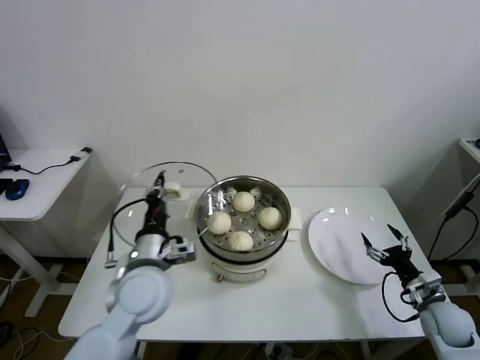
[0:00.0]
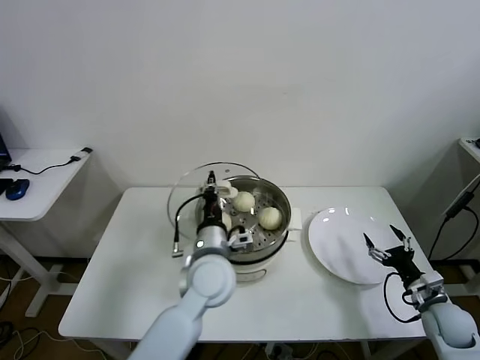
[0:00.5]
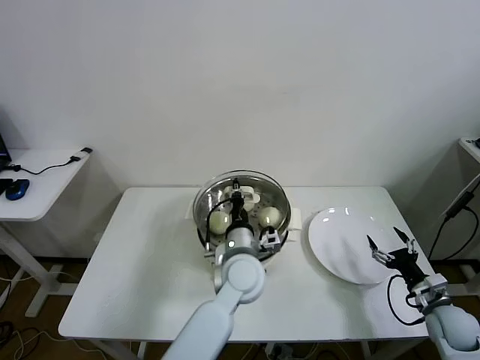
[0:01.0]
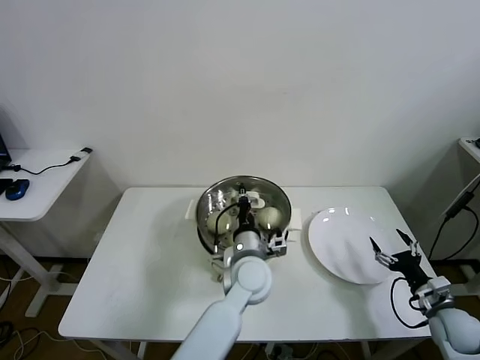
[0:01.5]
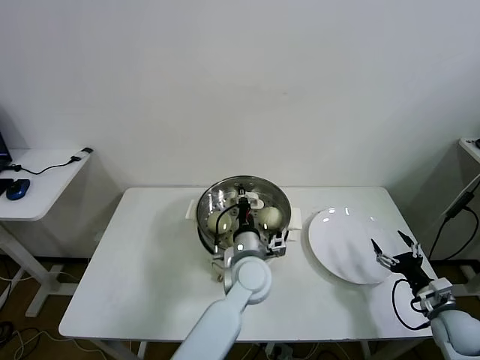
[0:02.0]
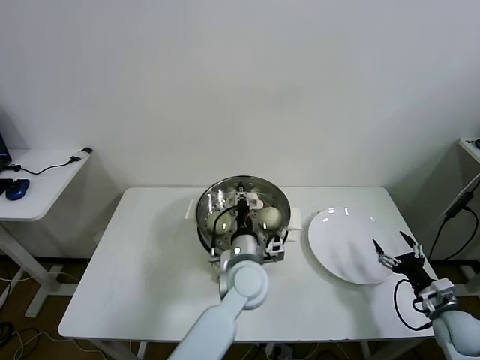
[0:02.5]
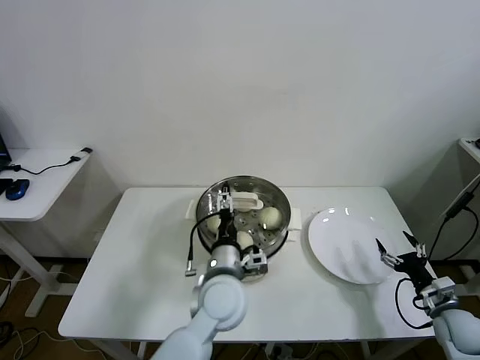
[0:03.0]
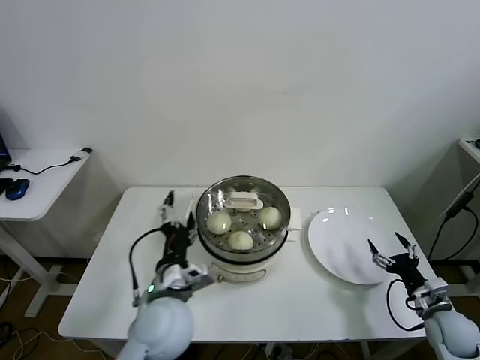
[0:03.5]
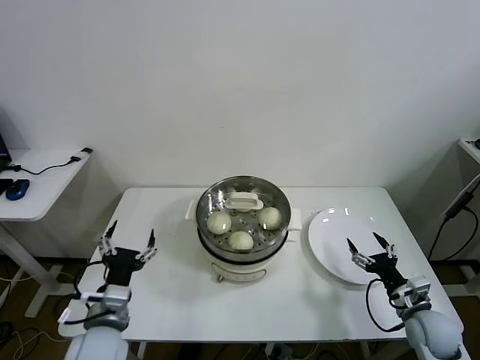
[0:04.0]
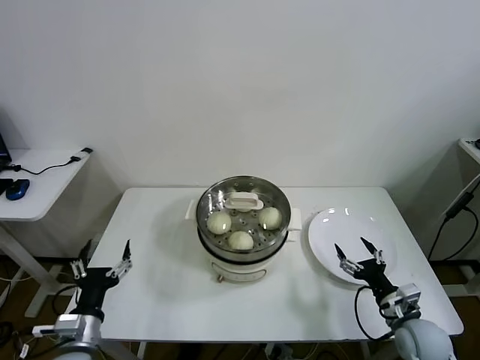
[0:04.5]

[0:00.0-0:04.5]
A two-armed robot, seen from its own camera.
Task of the whole recording: take steamed baozi put them in steamer.
Step, 0:00.0 to 0:02.5: Place the pot lid on the steamer with left gripper.
0:00.0 to 0:02.0: The left gripper moves to the right, about 20 cm.
0:02.0 to 0:04.5: The right gripper moves to the left, roughly 10 cm. Meanwhile the left gripper shifts roughly 35 cm to the left and backward, and opens up.

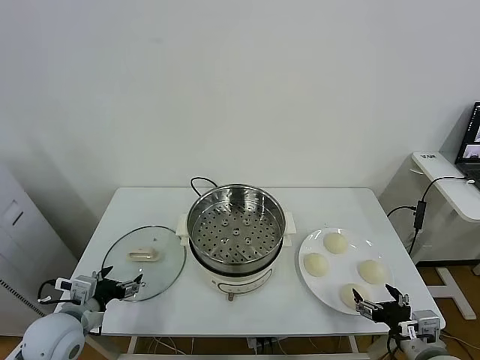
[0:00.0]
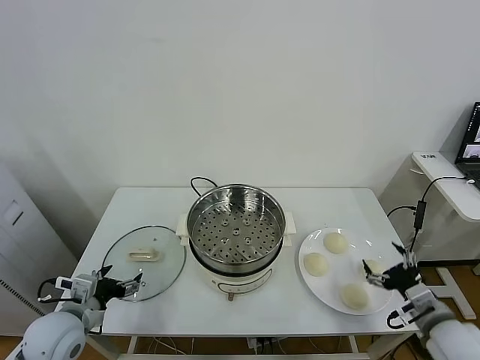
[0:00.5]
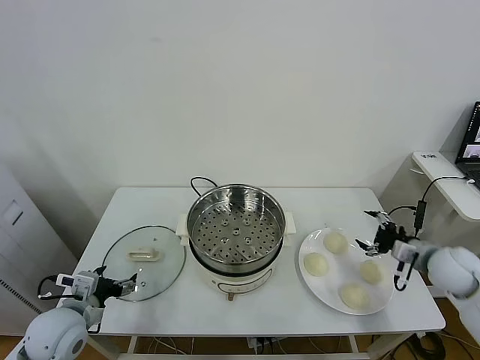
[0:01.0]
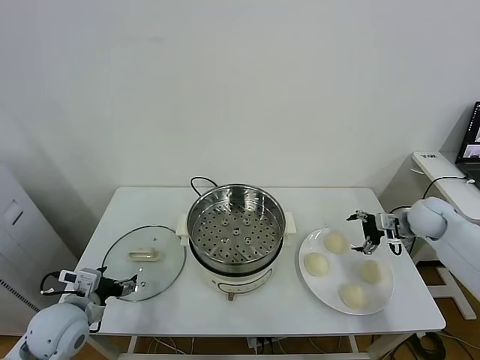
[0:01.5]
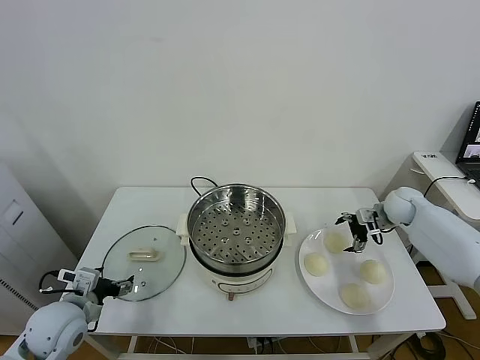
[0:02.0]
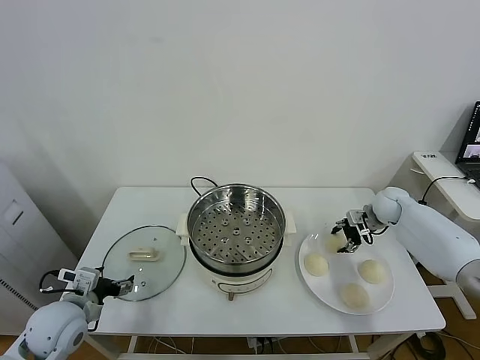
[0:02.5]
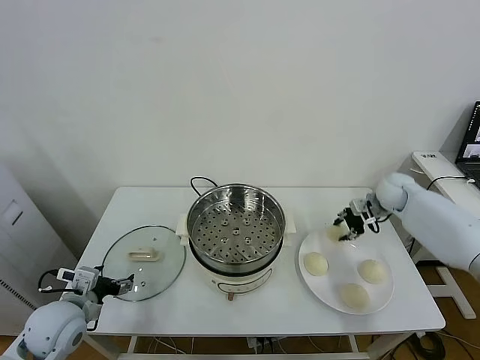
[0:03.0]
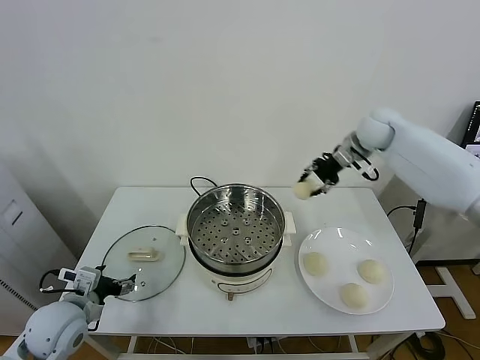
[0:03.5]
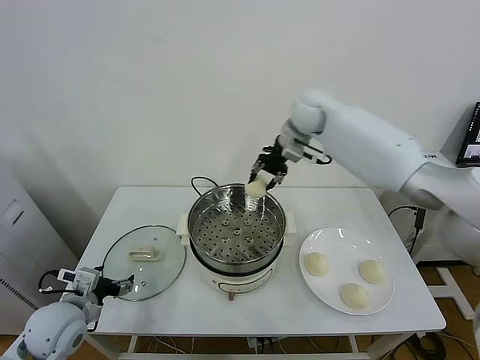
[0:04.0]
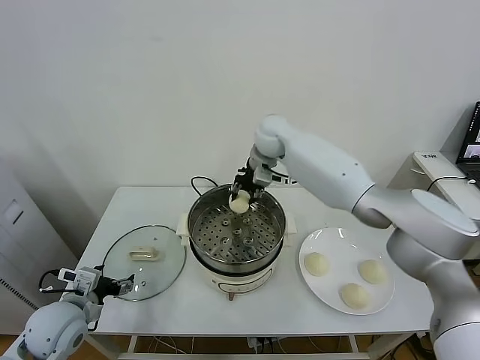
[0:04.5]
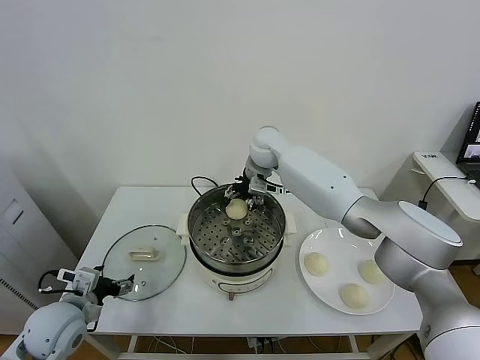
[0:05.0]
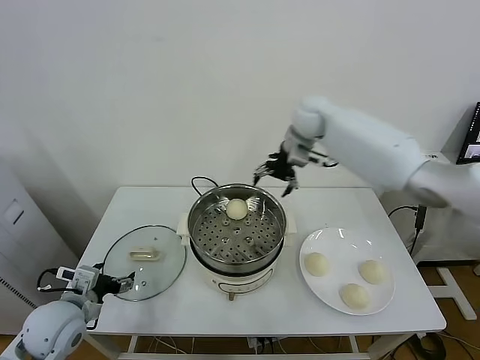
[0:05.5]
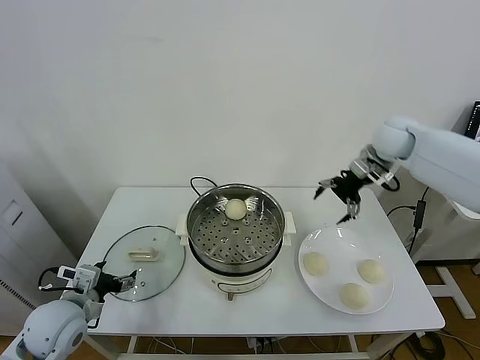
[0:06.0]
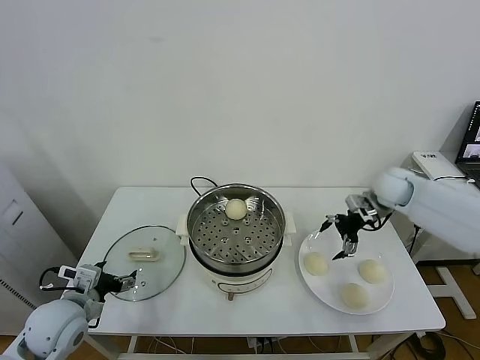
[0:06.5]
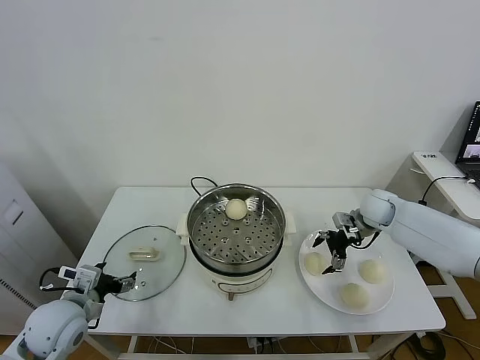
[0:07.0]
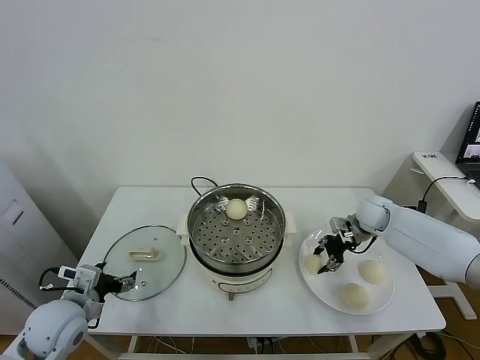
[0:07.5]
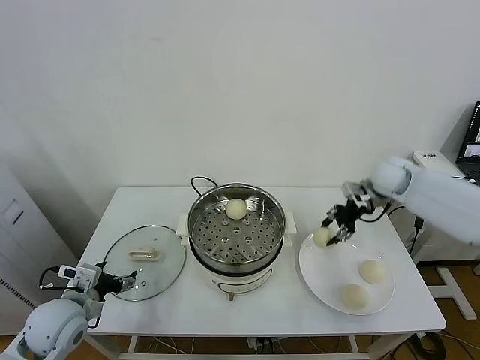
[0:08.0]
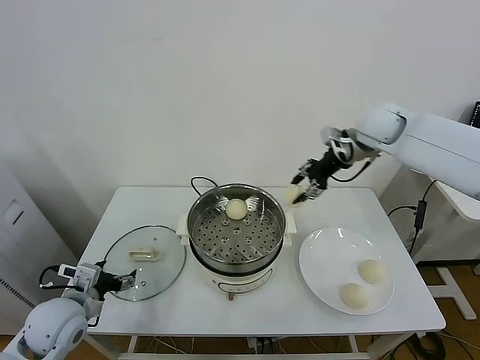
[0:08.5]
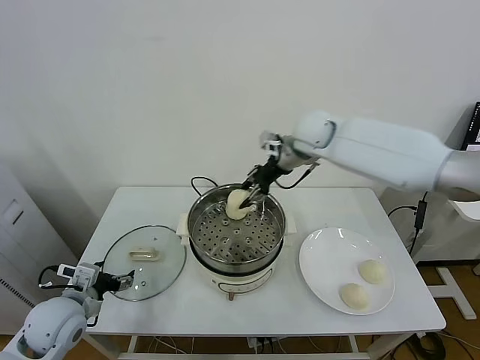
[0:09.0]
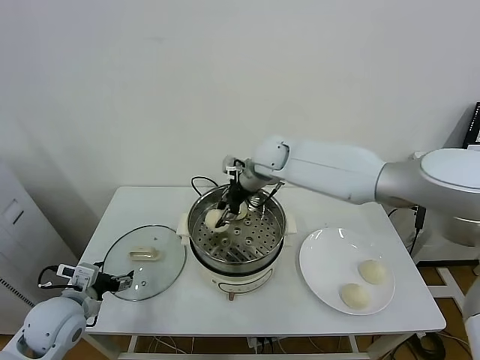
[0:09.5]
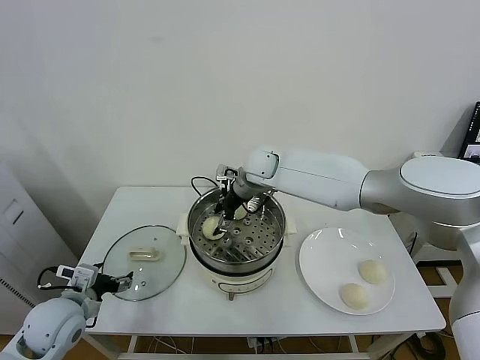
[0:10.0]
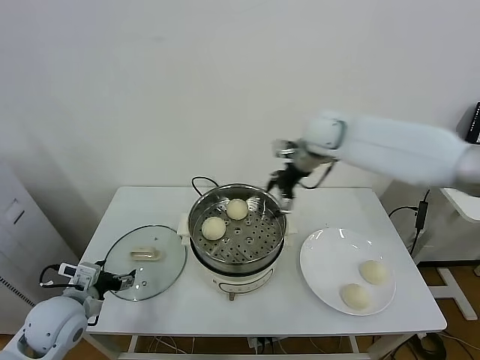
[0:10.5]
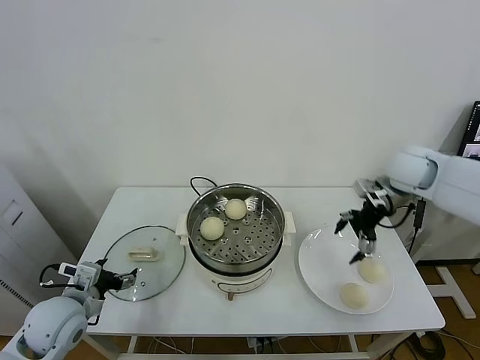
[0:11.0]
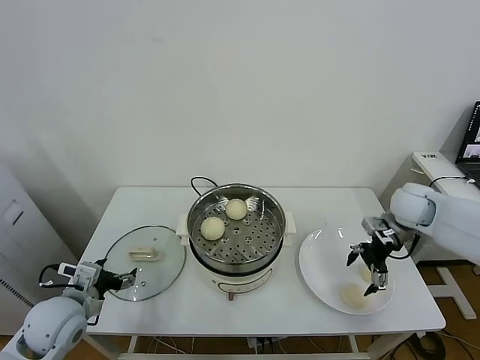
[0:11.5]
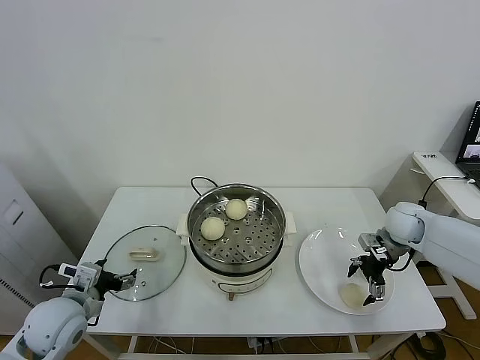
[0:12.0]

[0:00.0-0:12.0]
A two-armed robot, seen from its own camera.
Task of the whole recording: take steamed baozi put them in steamer.
Step, 0:00.0 to 0:02.5: Grasp the baozi in the plate with right gripper.
Step, 0:03.0 to 0:05.0: Place the baozi on the steamer with right gripper.
Step, 0:05.5 to 0:07.5: Grasp the baozi in the plate with right gripper.
Step, 0:08.0 to 0:10.0: Place the baozi on the steamer with right gripper.
0:02.0 to 0:04.0: The right gripper moves to the left and upward, some 35 cm, and closes.
0:04.0 to 0:06.0: The right gripper is displaced to the right by approximately 20 cm, and opens its fingers.
0:06.0 to 0:08.0: The right gripper moves about 20 cm downward and comes back, and closes its fingers.
0:08.0 to 0:10.0: The right gripper shifts approximately 30 cm to the left, and opens its fingers.
0:10.0 to 0:12.0: The right gripper moves to the right, about 35 cm.

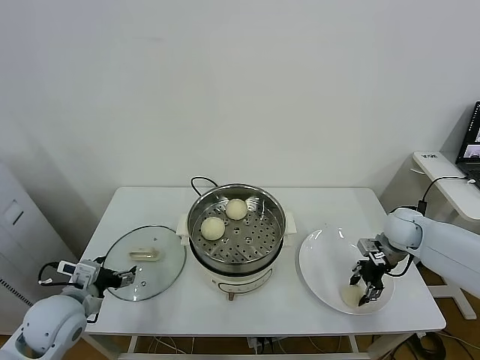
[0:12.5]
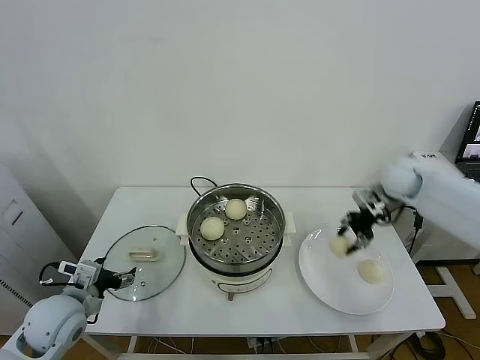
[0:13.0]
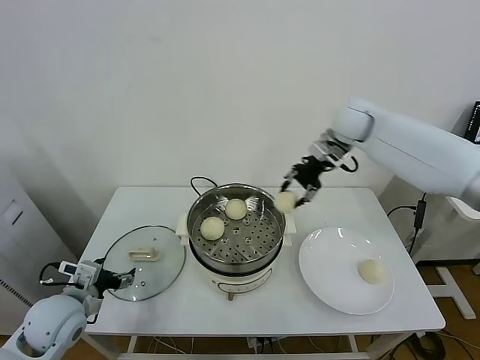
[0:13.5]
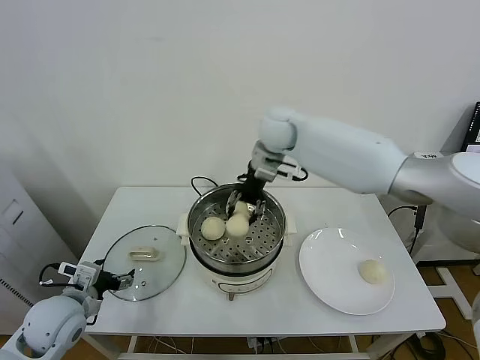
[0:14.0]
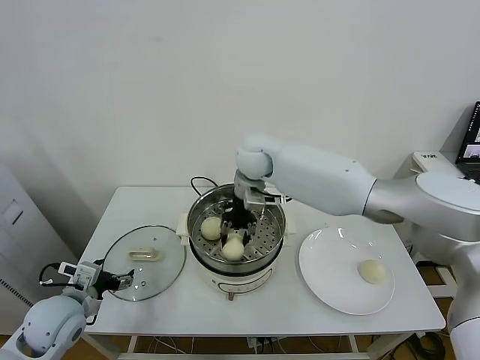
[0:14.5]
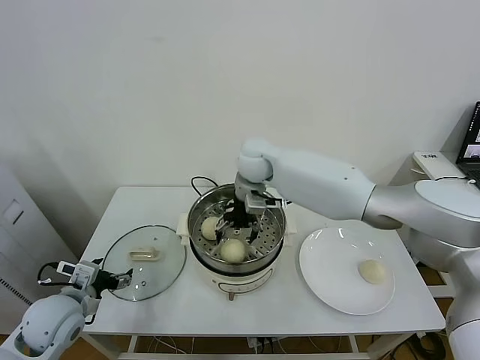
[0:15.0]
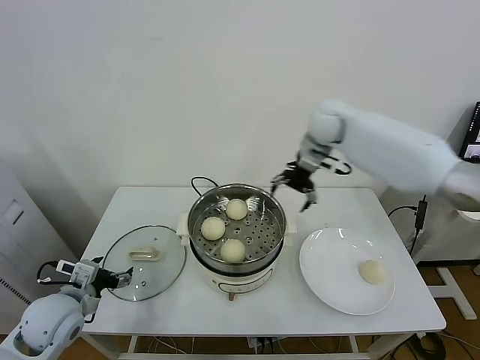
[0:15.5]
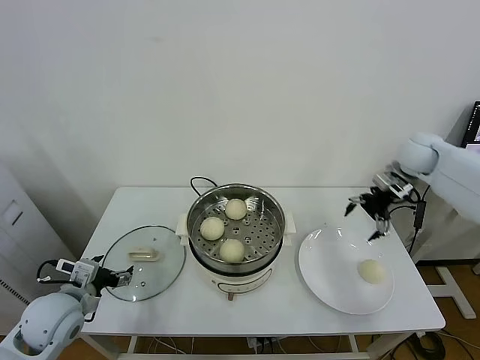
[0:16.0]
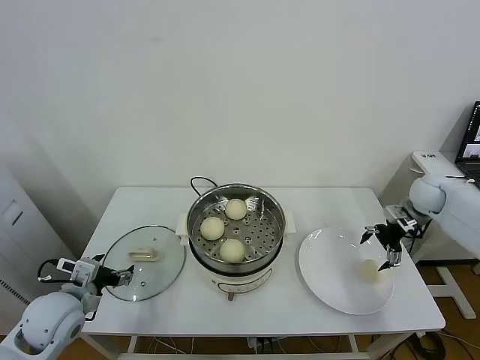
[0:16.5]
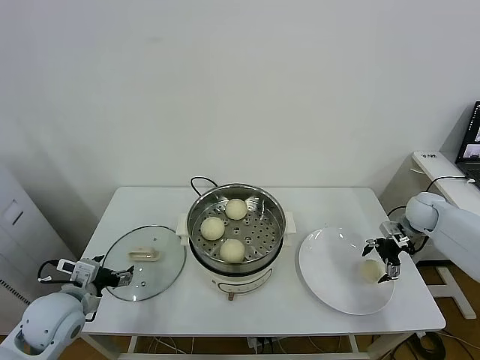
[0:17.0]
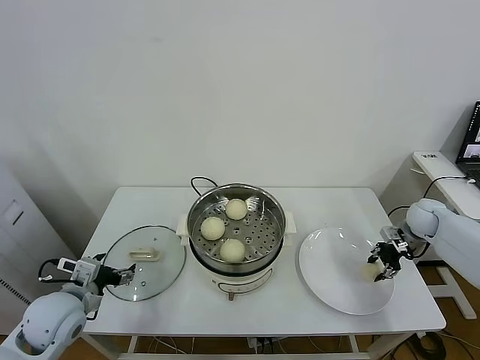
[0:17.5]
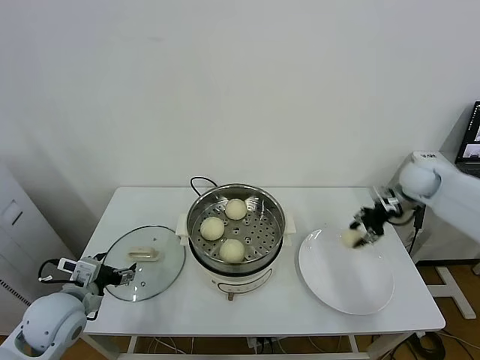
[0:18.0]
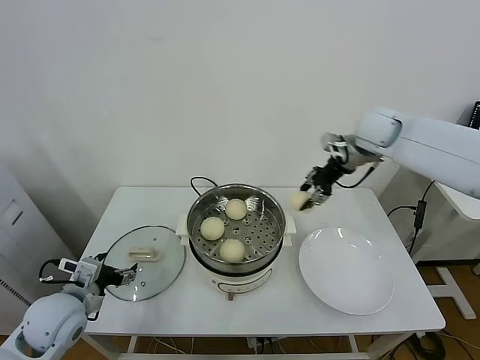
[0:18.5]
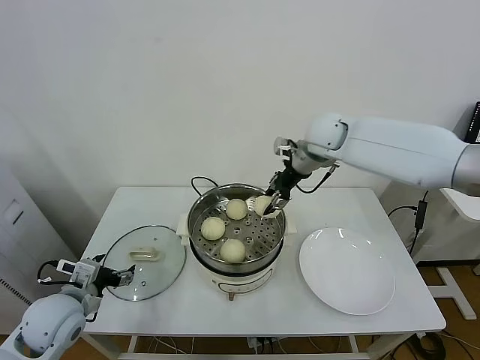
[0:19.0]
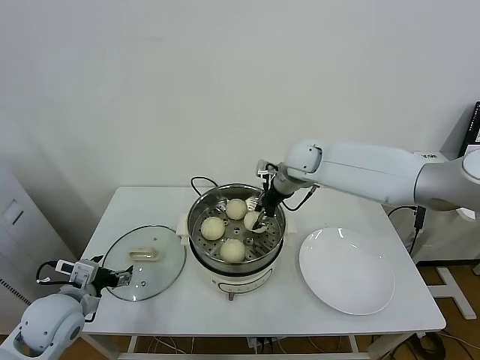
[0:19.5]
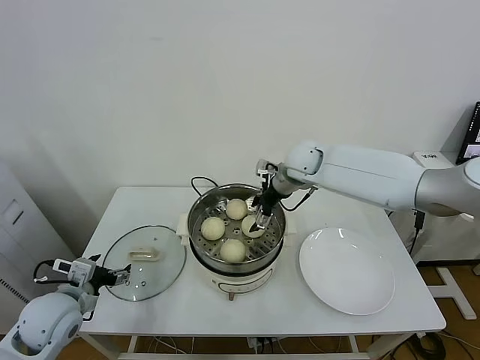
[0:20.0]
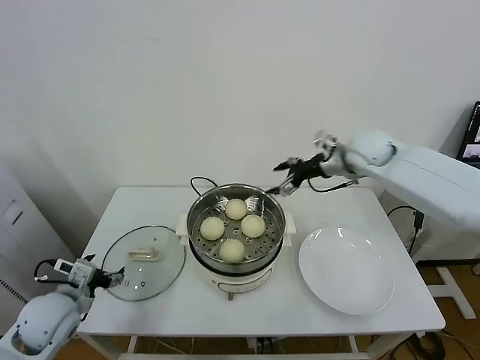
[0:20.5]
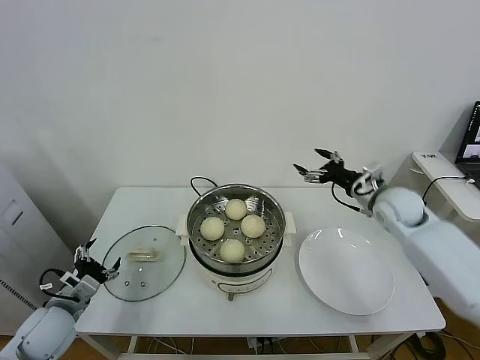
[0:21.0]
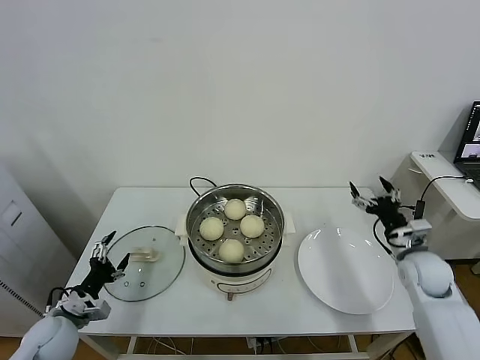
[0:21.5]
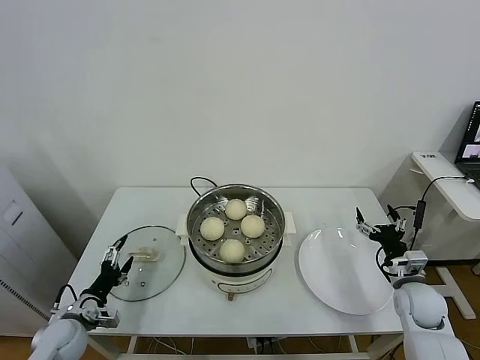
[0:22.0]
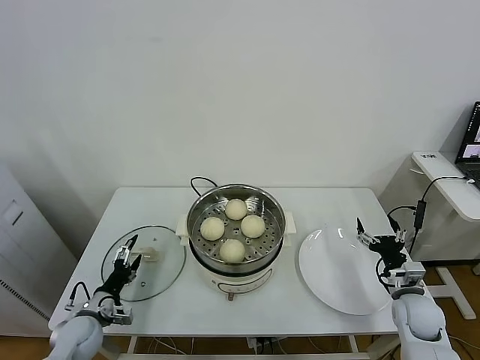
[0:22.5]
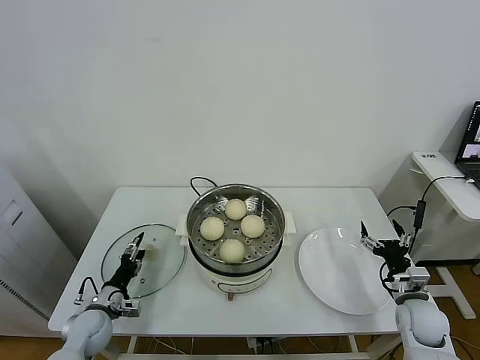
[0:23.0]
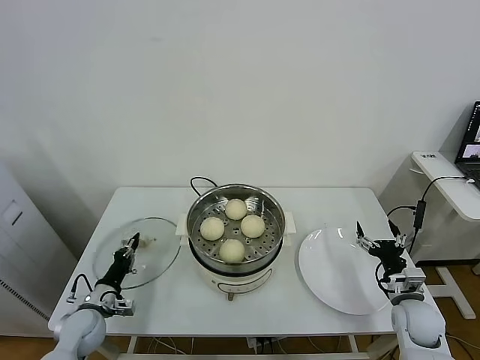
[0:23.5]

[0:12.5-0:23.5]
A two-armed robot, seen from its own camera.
Task of the whole recording: take steamed baozi put them in steamer.
Step, 0:13.0 to 0:15.0: Place the baozi on the steamer with right gripper.
Step, 0:15.5 to 0:17.0: Grasp the baozi in the plate with right gripper.
Step, 0:17.5 to 0:20.0: Place the baozi on the steamer with right gripper.
0:12.5 to 0:14.5: The right gripper shifts approximately 40 cm to the left and upward.
0:14.5 to 0:16.0: The right gripper travels to the right by about 40 cm, and opens up.
0:16.0 to 0:18.0: The right gripper moves about 15 cm downward and comes back, and closes its fingers.
0:18.0 to 0:20.0: The right gripper moves to the left, about 25 cm, and opens.
0:20.0 to 0:21.5: The left gripper is displaced downward by approximately 10 cm, while the right gripper moves to the right, backward and downward, approximately 35 cm.
0:21.5 to 0:23.5: The right gripper shifts approximately 10 cm downward and backward. Meanwhile the left gripper is displaced downward by roughly 5 cm, and closes up.
